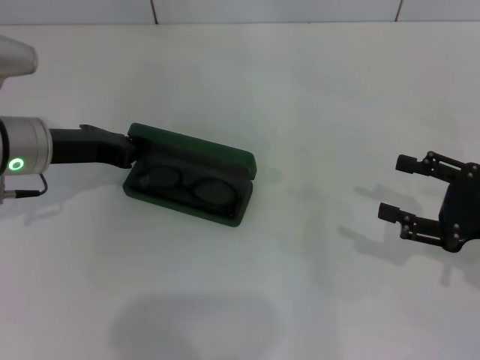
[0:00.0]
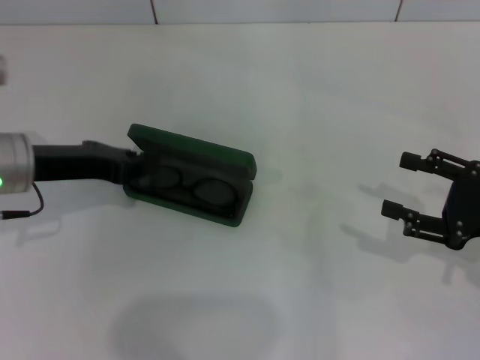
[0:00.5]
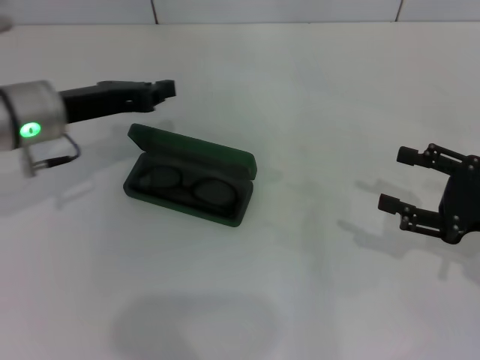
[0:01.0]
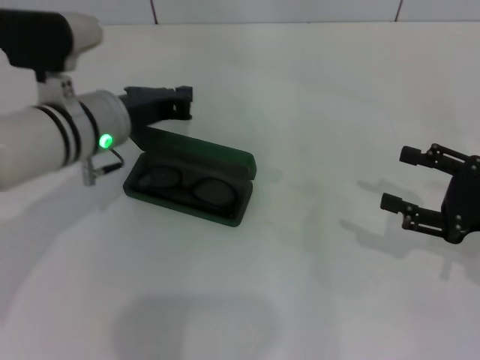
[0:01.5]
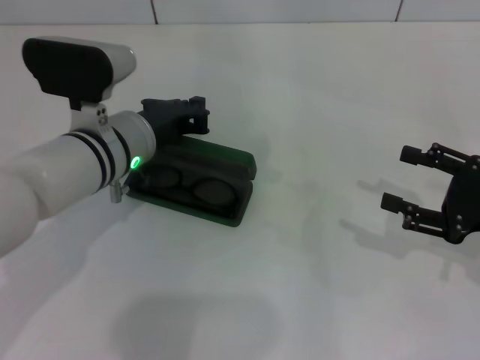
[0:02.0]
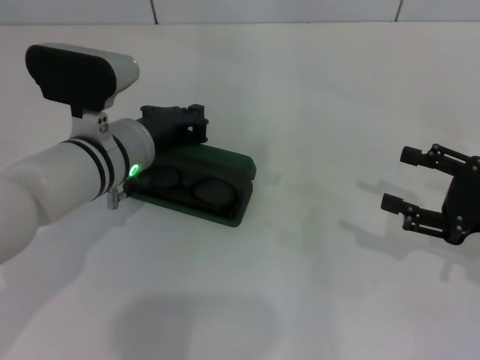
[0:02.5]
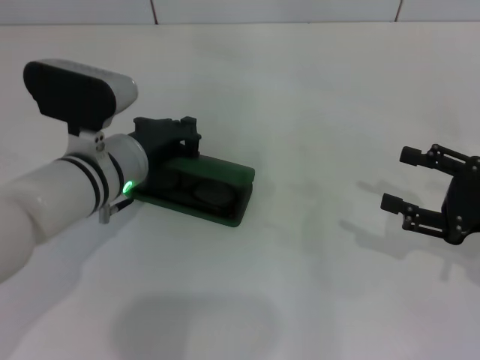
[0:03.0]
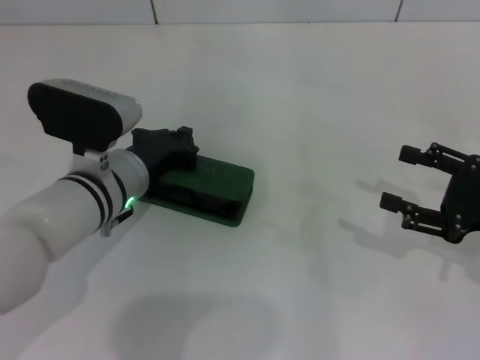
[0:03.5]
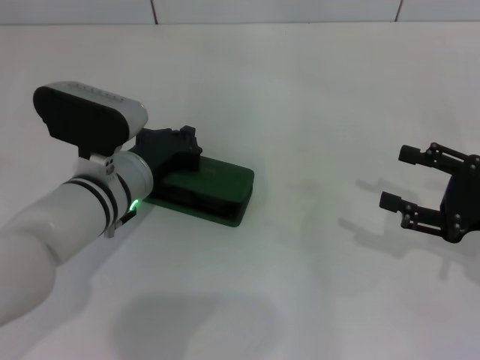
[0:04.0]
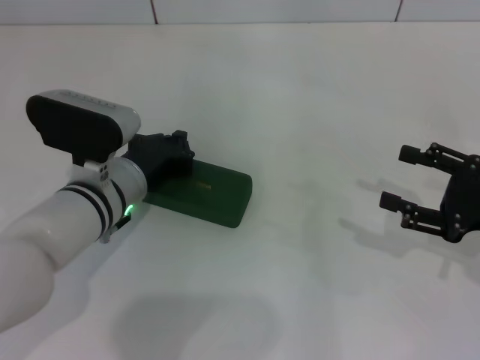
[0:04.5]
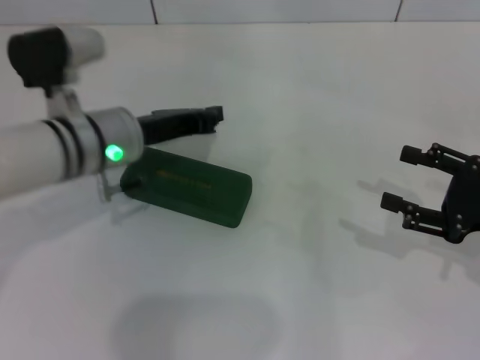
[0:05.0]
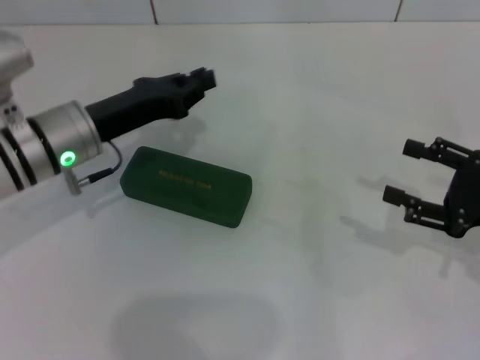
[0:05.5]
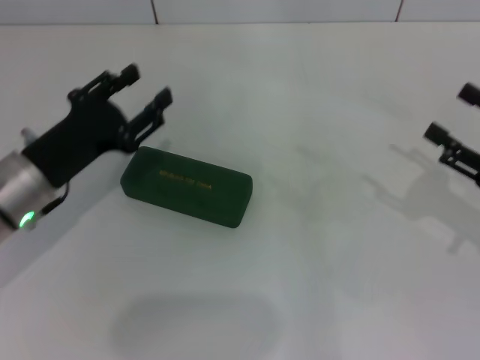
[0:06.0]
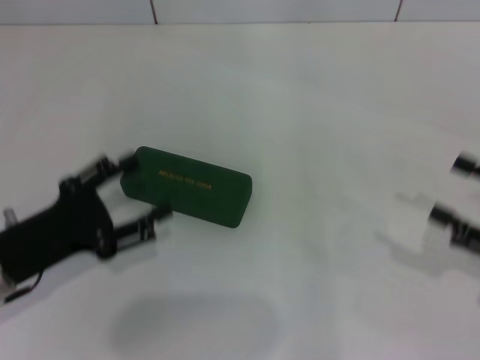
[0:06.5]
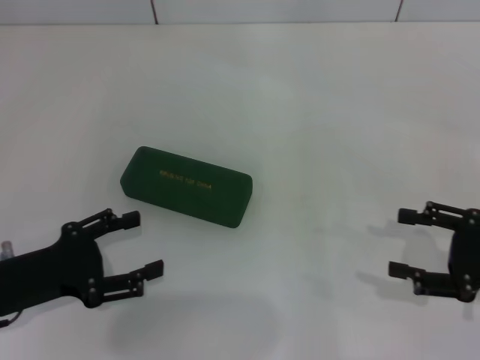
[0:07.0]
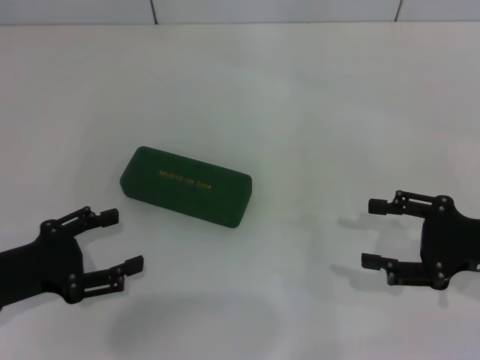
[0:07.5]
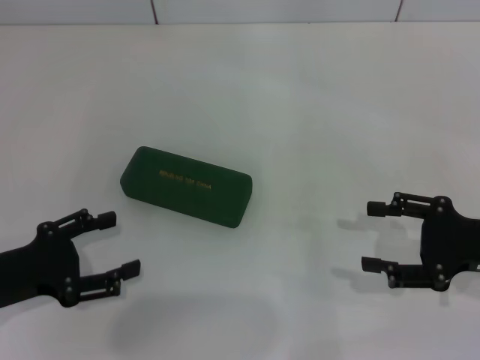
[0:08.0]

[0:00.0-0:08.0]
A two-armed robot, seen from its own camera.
Step, 0:00.0 to 0:04.0: Close the glasses case with your left hand.
0:00.0 to 0:02.0: The left gripper is displaced to the right by roughly 10 cm.
0:02.0 to 0:04.0: The grippers move only a little.
0:04.0 to 0:06.0: The left gripper heads to the left, covering about 10 cm, and opens.
0:06.0 to 0:08.0: The left gripper moves backward and to the left, about 10 cm, and opens.

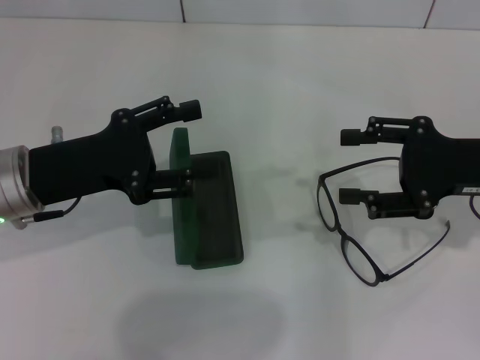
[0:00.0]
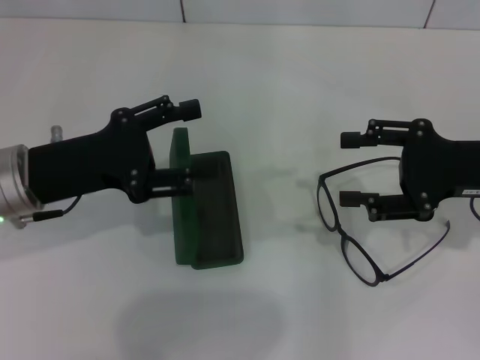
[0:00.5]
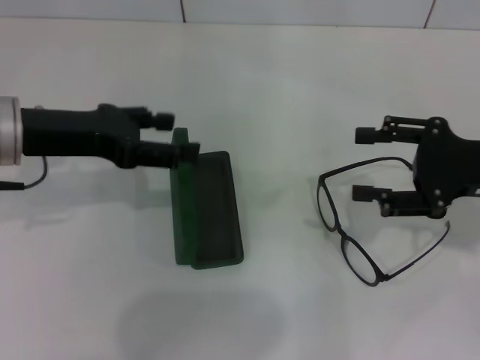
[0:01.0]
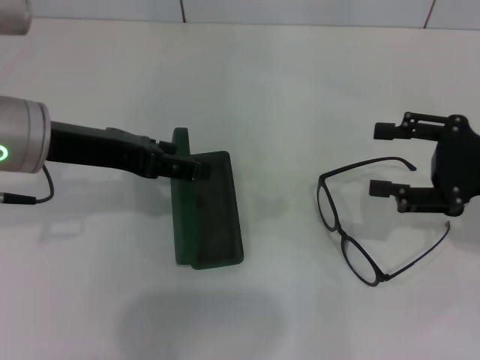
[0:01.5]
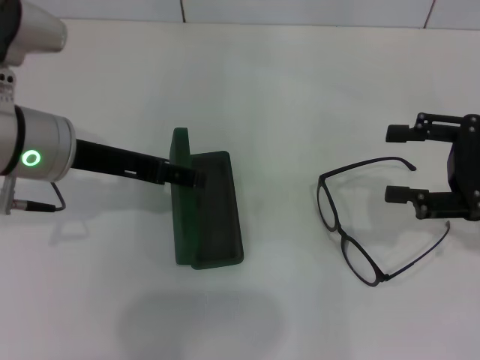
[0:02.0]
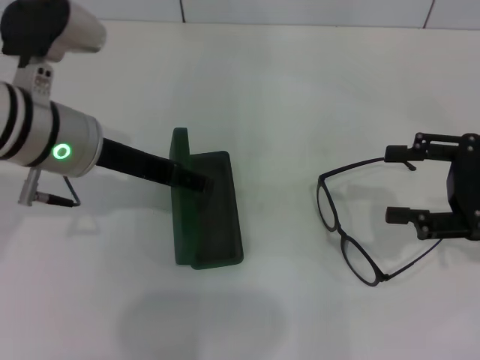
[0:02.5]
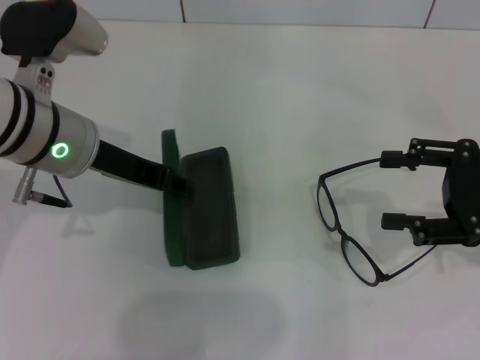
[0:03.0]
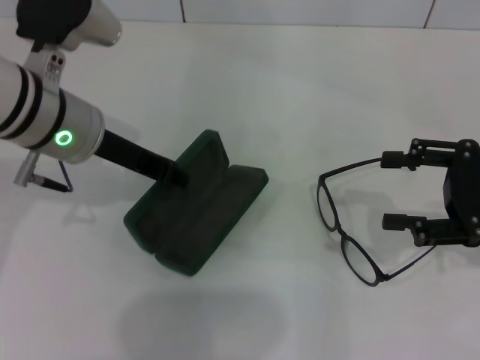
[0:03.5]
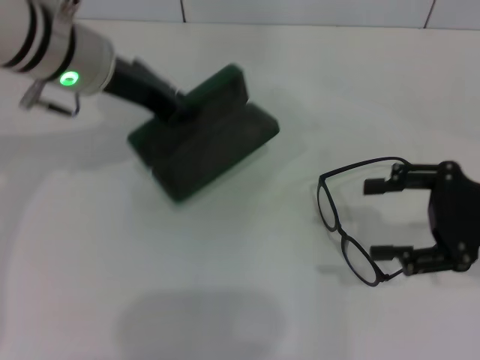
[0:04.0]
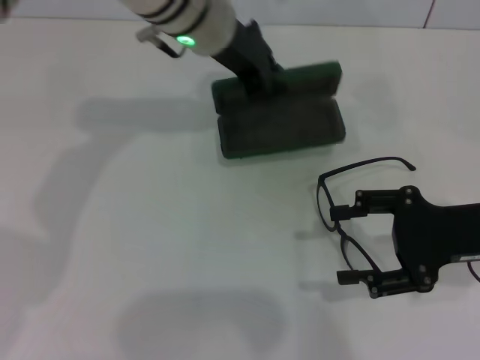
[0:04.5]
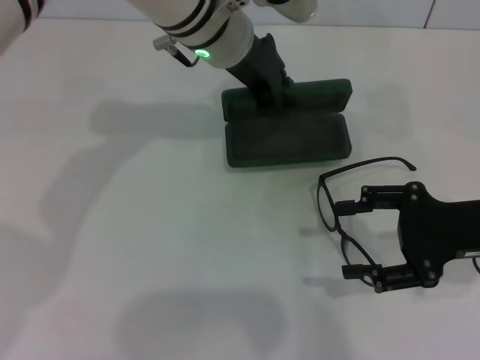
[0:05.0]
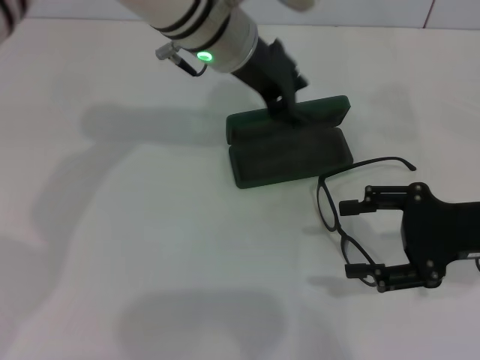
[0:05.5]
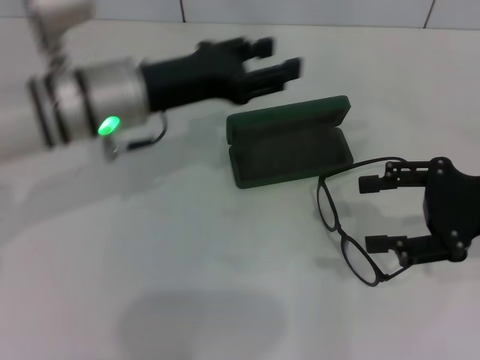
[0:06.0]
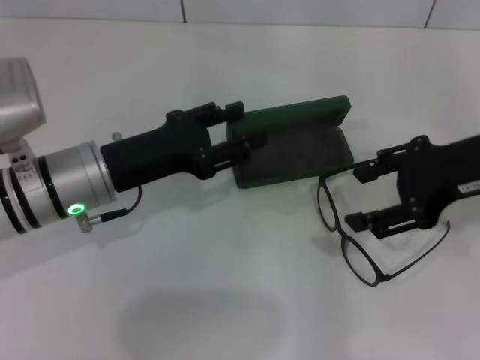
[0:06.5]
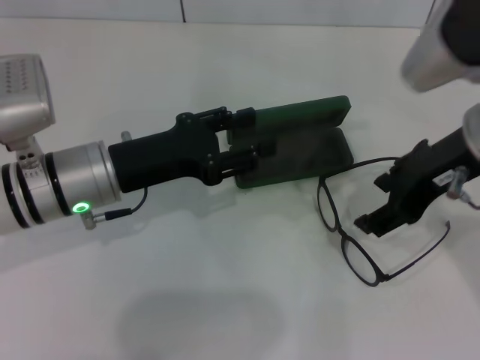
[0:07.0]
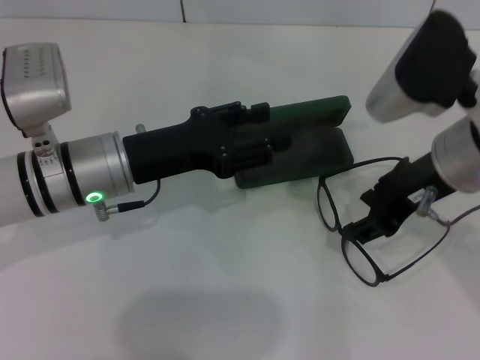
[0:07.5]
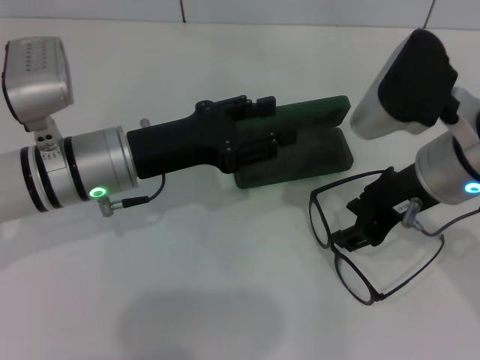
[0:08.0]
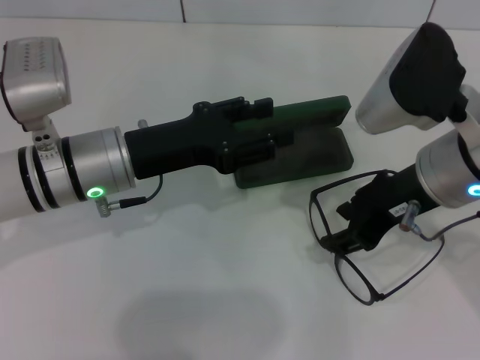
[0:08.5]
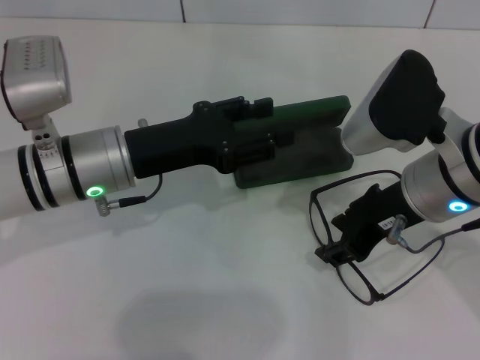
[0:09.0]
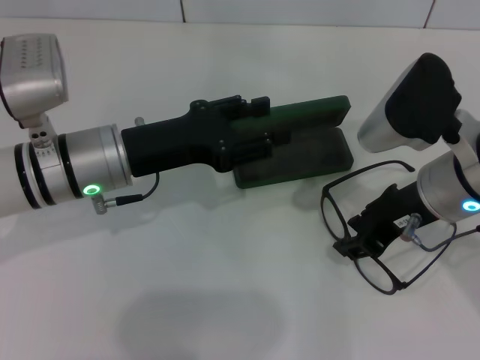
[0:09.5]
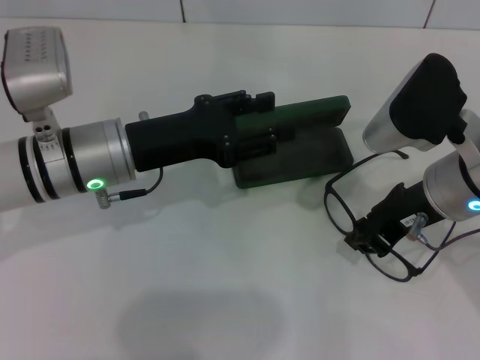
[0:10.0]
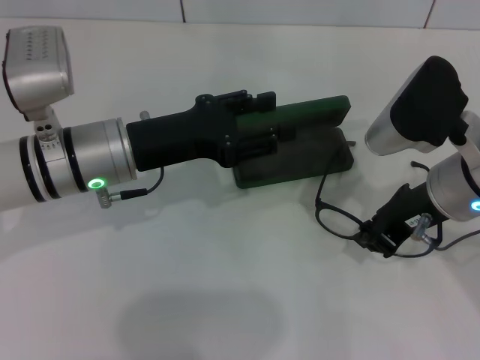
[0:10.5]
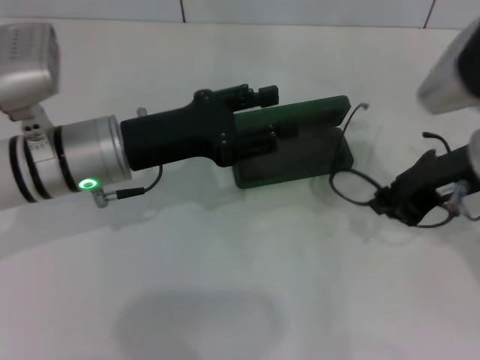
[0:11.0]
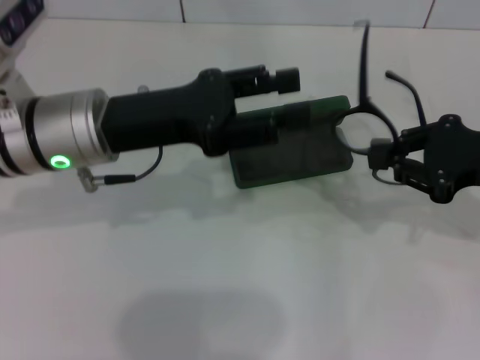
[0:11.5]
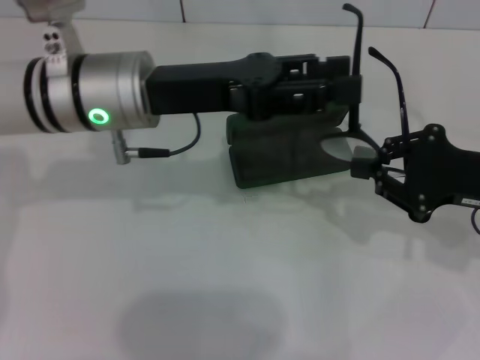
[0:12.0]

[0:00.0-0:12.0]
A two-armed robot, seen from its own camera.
Step, 0:00.0 to 0:03.0: Grab the glasses case with your left hand.
Step, 0:03.5 to 0:05.0: Place the glasses case in the center of the table with your left hand.
Step, 0:05.5 to 0:10.0: Grab the eyeglass frame with your right hand.
0:00.0 to 0:02.0: The left gripper goes roughly 5 cm upward.
0:02.0 to 0:04.0: The left gripper heads forward, covering approximately 5 cm, and closes.
0:04.0 to 0:06.0: The left gripper shifts some 5 cm downward, reaches about 10 cm to the right, then returns, and opens.
0:06.0 to 0:08.0: The right gripper is displaced to the left by some 15 cm; the left gripper moves some 5 cm.
0:08.0 to 0:10.0: The right gripper closes up.
0:10.0 to 0:12.0: The right gripper moves to the right, some 10 cm; the left gripper travels upward by some 5 cm.

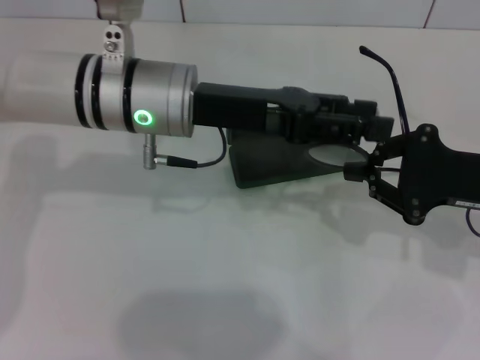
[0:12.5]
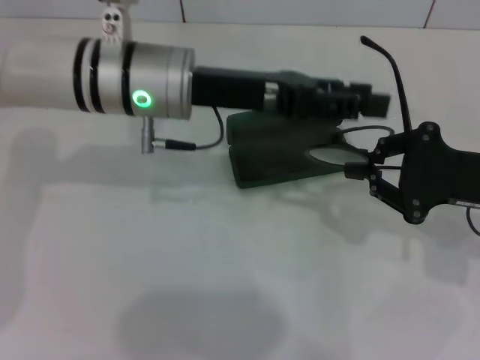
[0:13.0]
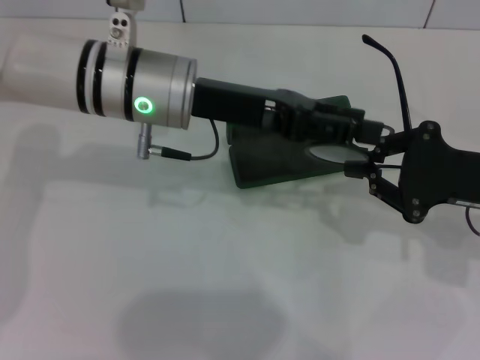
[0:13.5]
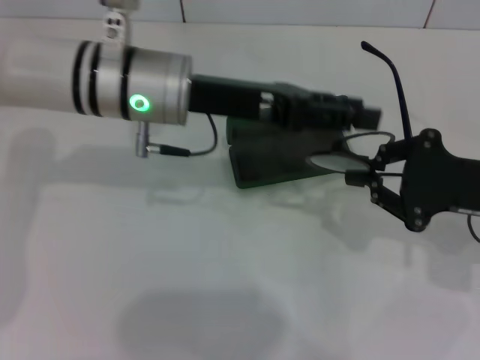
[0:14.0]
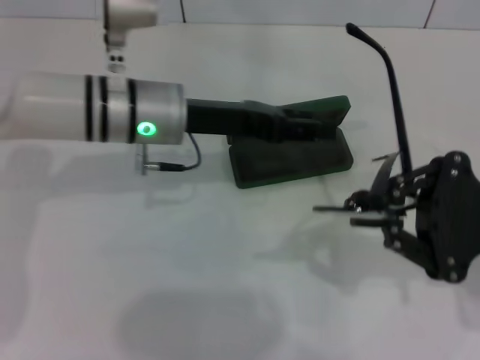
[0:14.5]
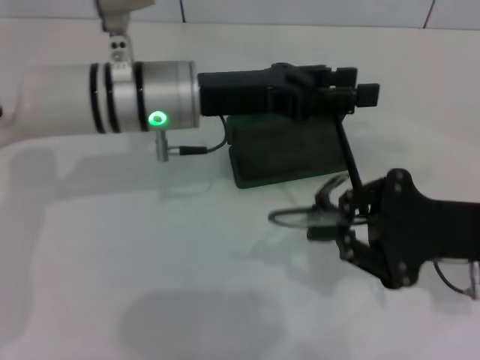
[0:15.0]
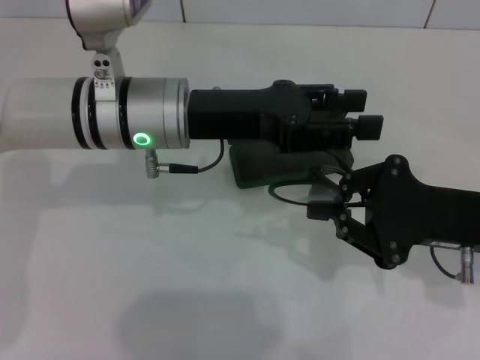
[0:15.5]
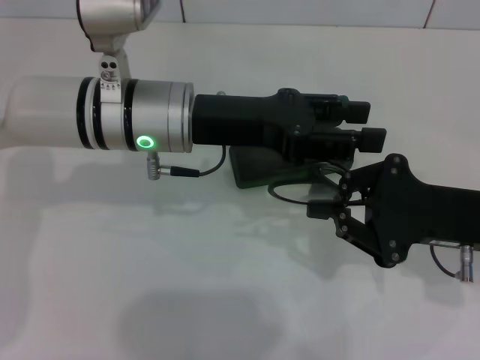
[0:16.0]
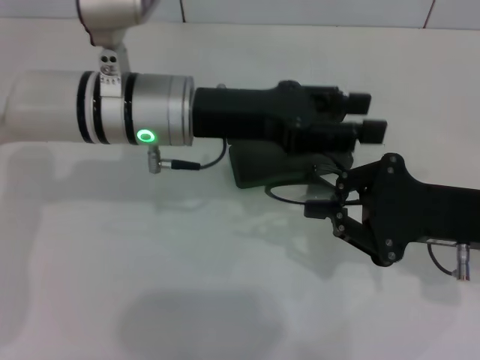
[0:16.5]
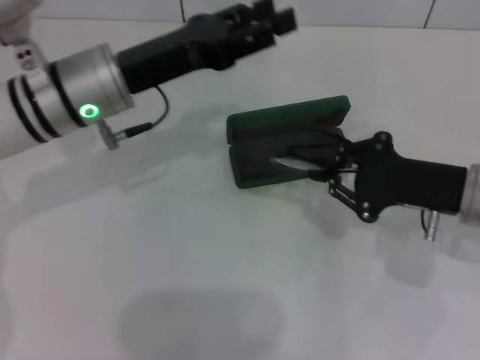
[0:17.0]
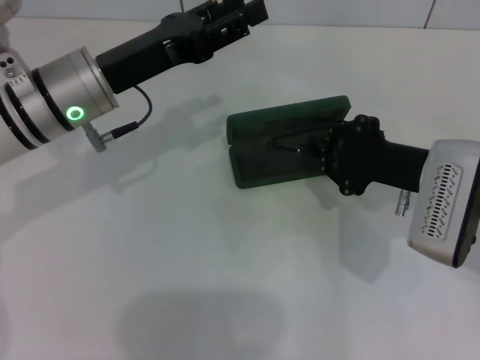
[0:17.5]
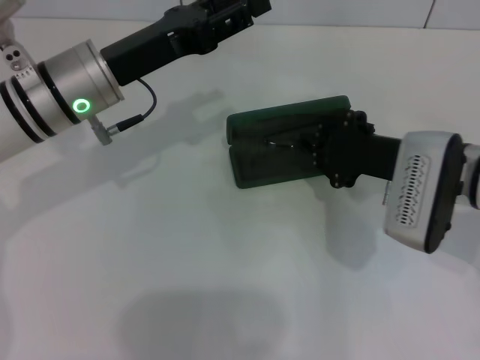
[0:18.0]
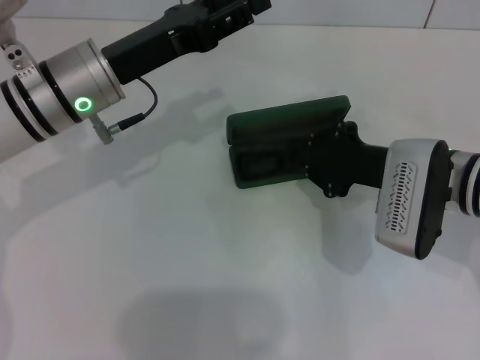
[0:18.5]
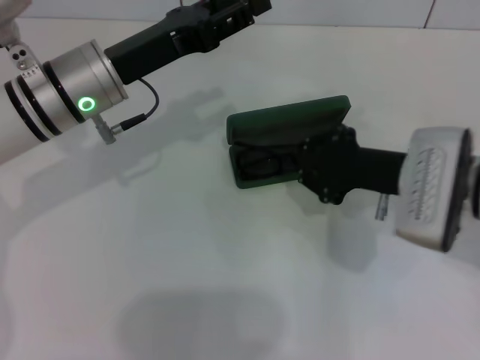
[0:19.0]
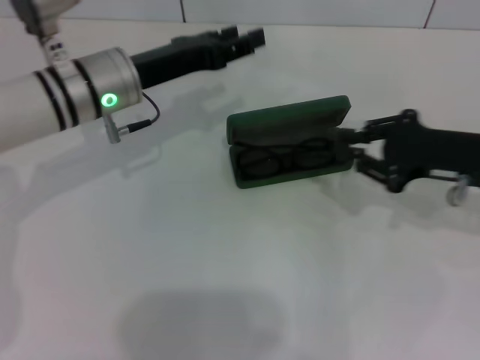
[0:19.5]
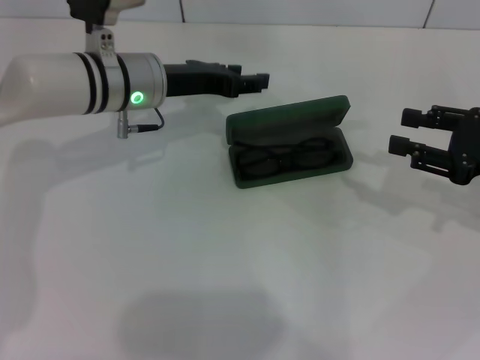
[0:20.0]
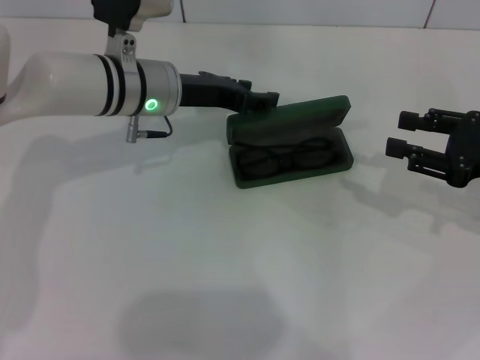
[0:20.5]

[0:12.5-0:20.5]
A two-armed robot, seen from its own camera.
Step, 0:12.5 to 0:16.0: Fold the frame with your left hand.
Step, 0:16.5 to 0:18.0: Put the glasses into the case with your right hand.
0:16.5 to 0:18.5: The left gripper goes roughly 5 cm to the left. Meanwhile the right gripper heads forward and to the left, covering approximately 10 cm.
0:18.5 to 0:20.5: The left gripper heads forward, covering roughly 5 cm. The right gripper is displaced to the right by about 15 cm, and opens its fingers.
